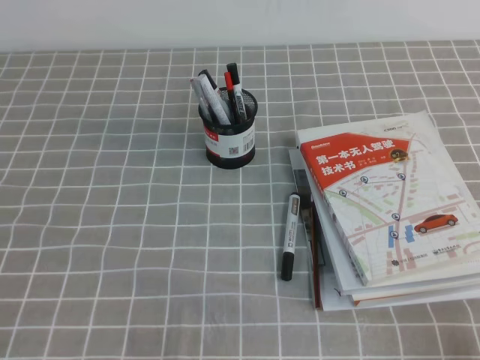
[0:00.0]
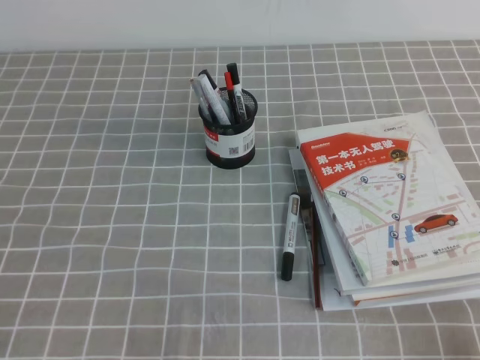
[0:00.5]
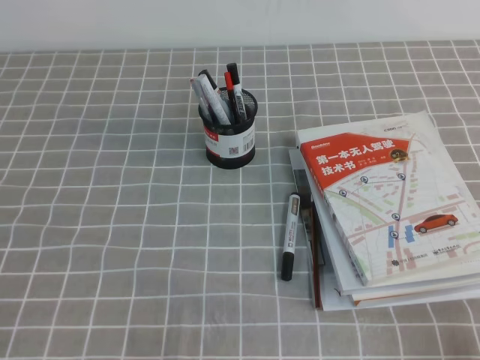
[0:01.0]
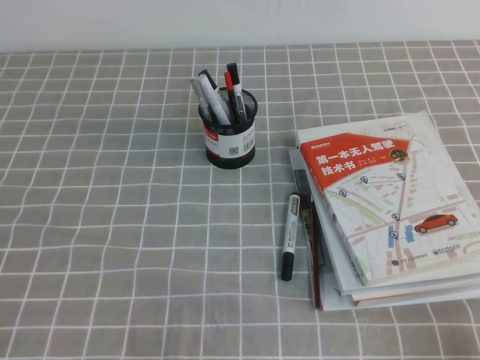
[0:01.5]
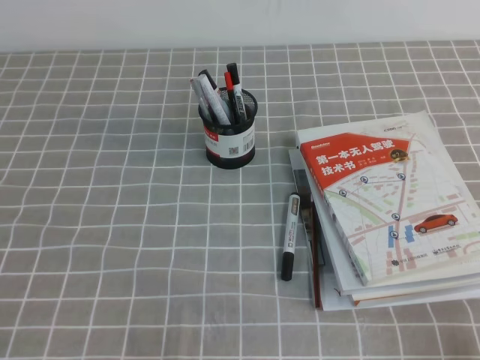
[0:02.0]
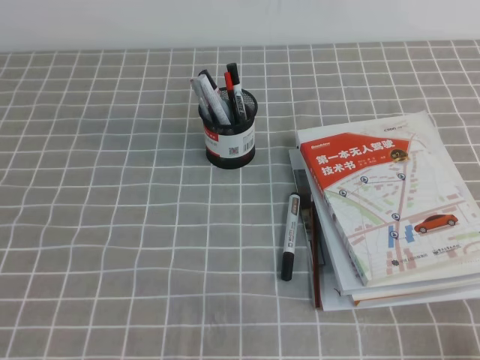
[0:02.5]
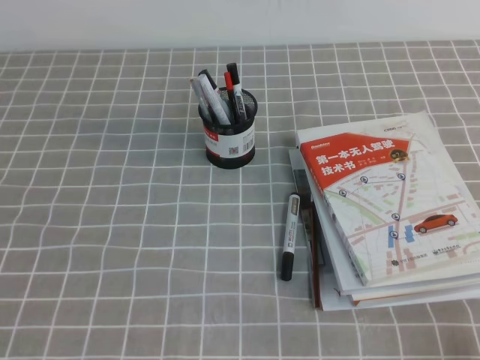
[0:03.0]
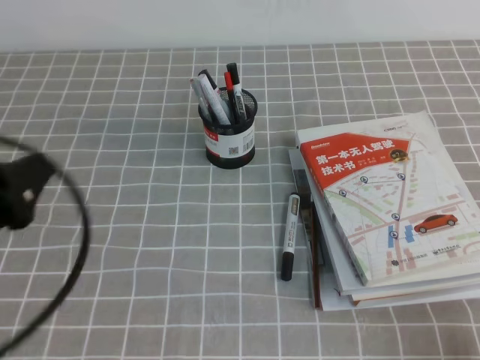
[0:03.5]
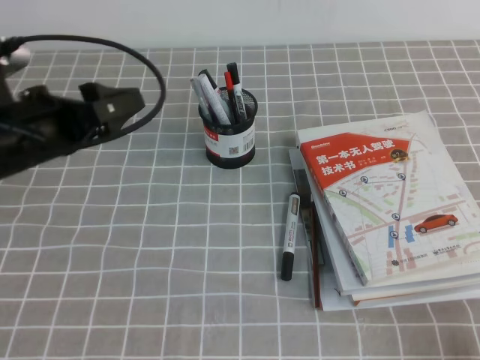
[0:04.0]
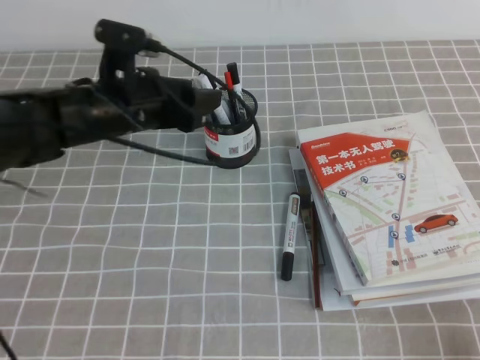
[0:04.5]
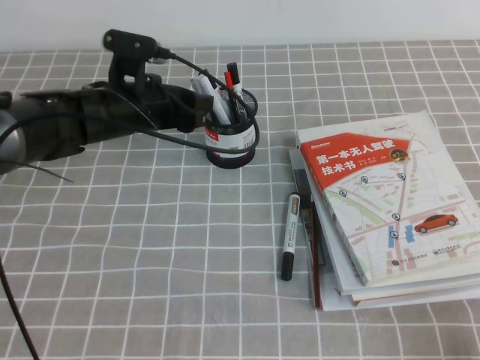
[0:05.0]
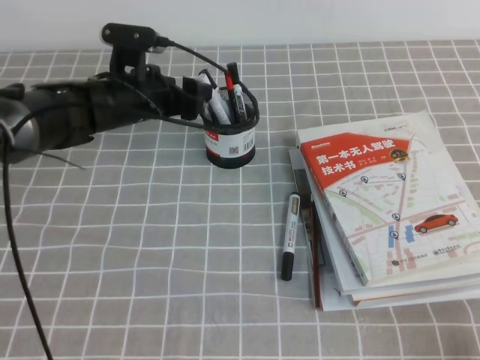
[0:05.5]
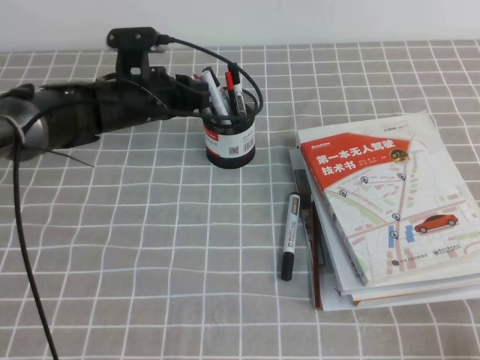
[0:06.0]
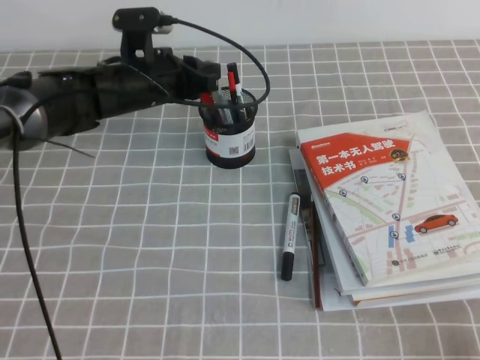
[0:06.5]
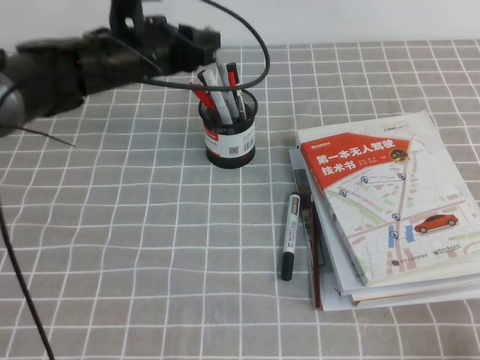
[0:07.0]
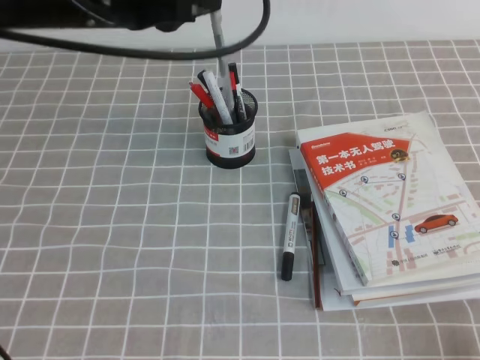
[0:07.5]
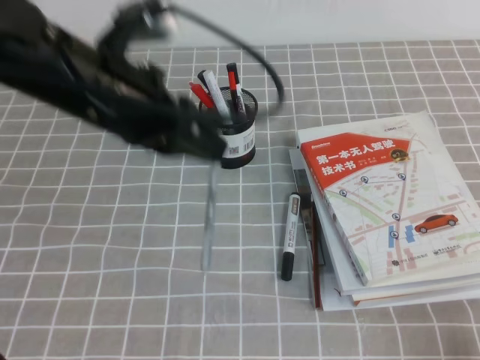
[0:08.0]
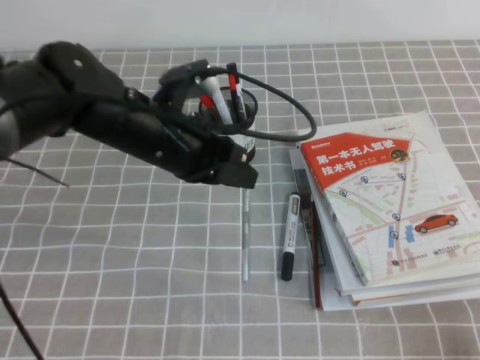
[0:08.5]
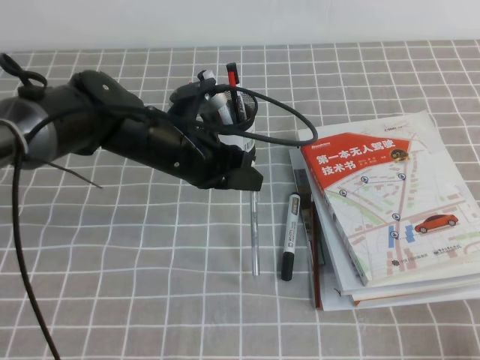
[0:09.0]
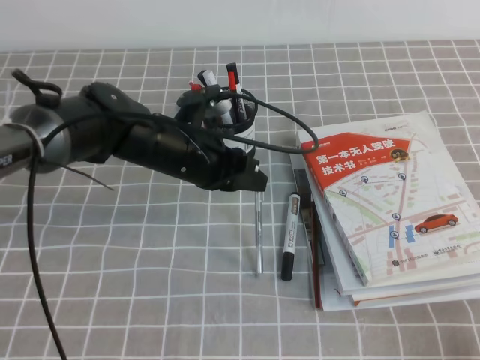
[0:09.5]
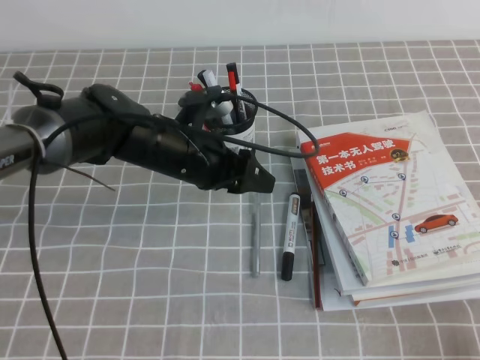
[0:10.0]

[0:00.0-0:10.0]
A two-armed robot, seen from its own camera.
0:00.0 to 0:02.0: Both grippers stay about where they are.
0:02.0 to 0:04.0: The left gripper travels forward and upward by roughly 25 cm, and opens.
0:04.0 to 0:06.0: The left gripper goes roughly 20 cm forward, to the right and downward, and closes its fingers.
0:06.0 to 0:08.0: The left gripper travels backward and upward by about 20 cm.
0:08.0 to 0:10.0: The left gripper moves downward, some 15 cm, and opens up.

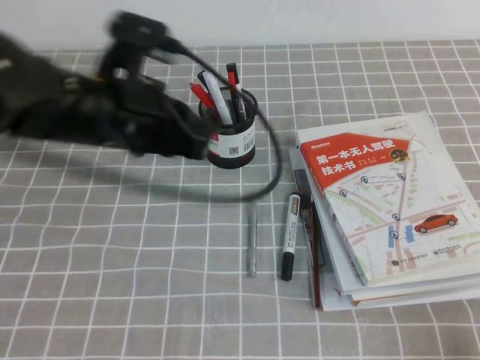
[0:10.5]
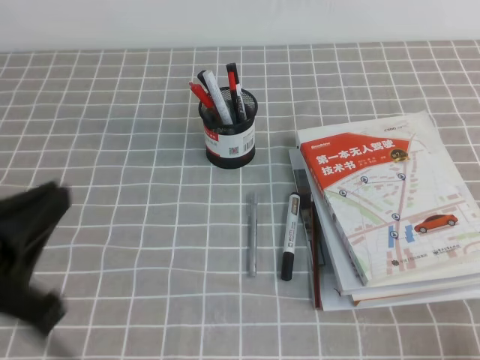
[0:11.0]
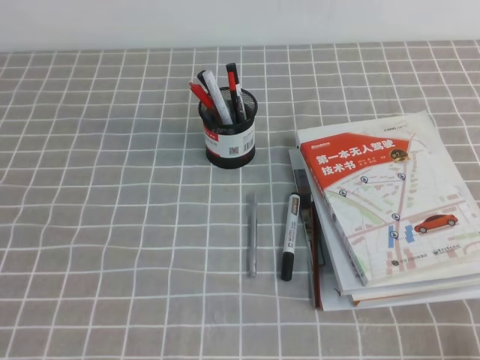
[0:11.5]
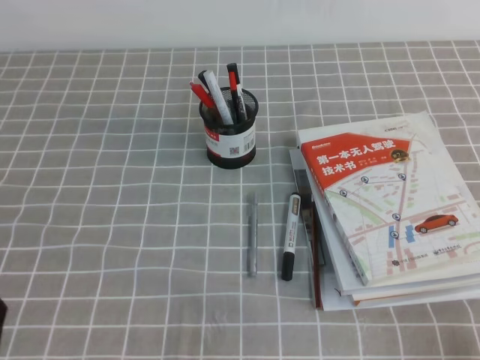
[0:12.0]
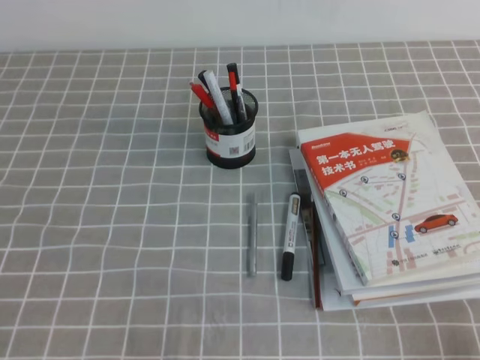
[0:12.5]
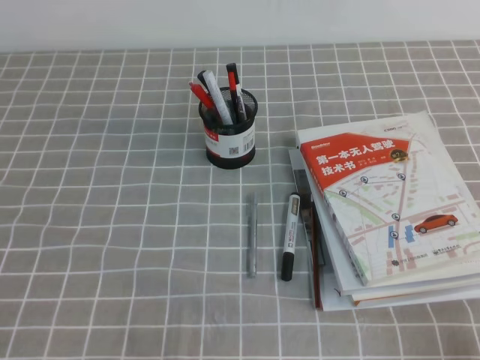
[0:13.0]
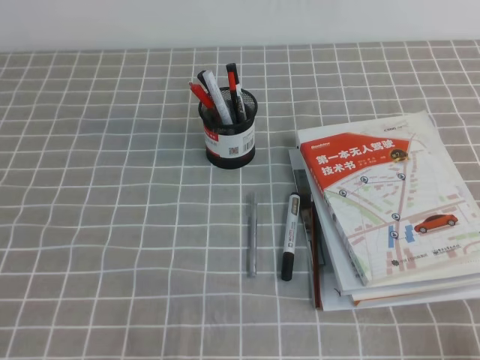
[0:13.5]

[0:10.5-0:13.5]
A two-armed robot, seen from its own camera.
Step, 0:10.5 to 0:13.5: Pick up the pen from the pen holder.
0:10.5 to 0:12.0: The left gripper travels backward, to the left and downward by about 30 cm.

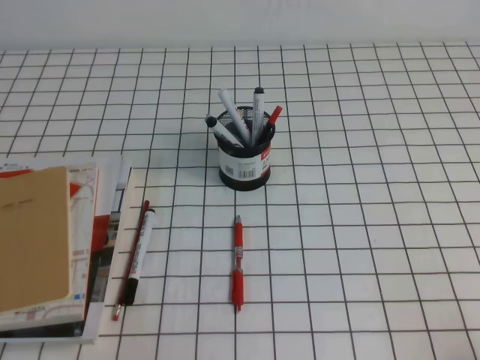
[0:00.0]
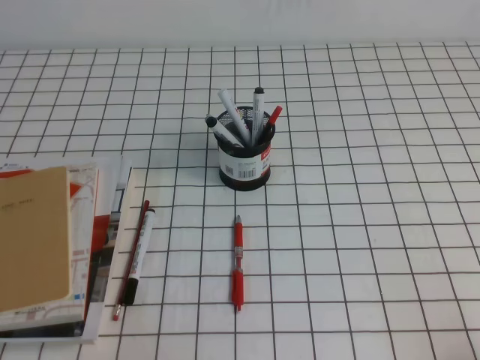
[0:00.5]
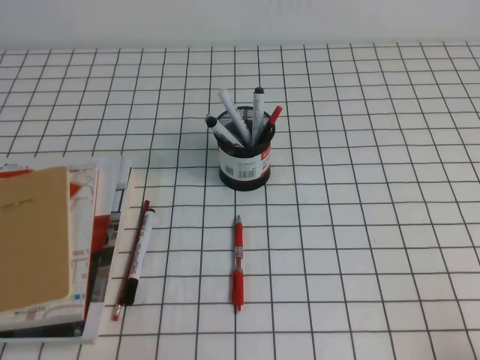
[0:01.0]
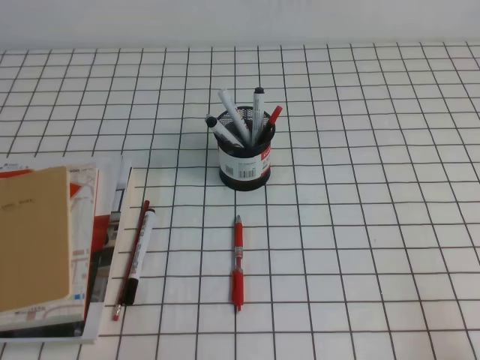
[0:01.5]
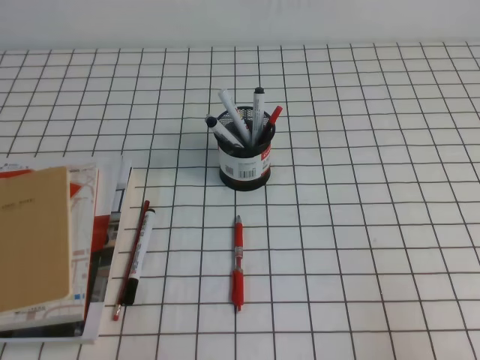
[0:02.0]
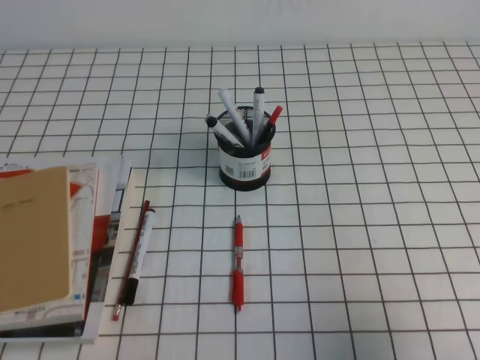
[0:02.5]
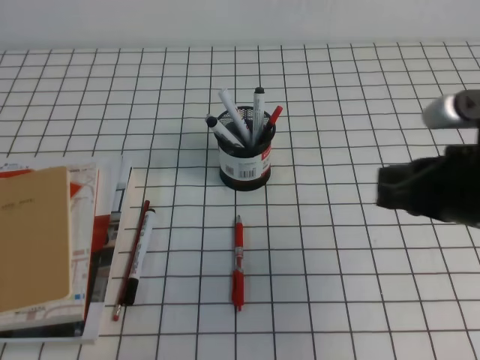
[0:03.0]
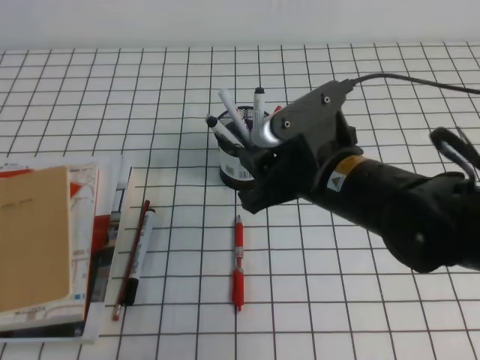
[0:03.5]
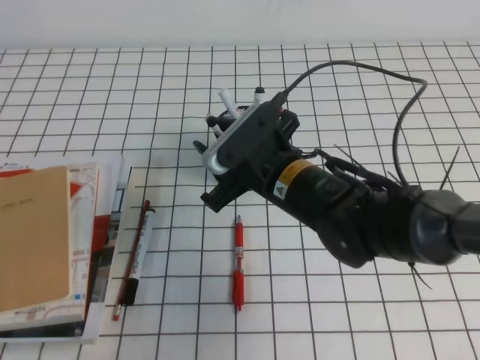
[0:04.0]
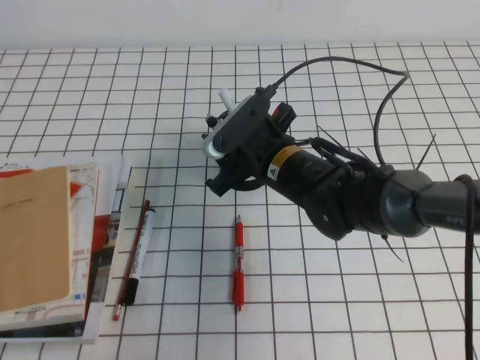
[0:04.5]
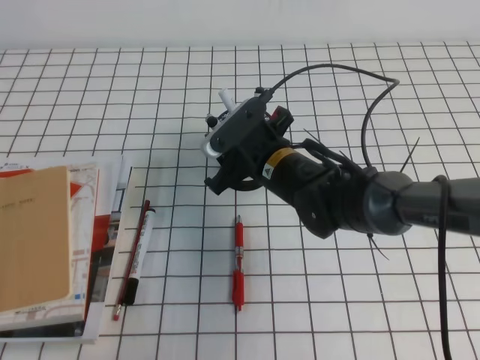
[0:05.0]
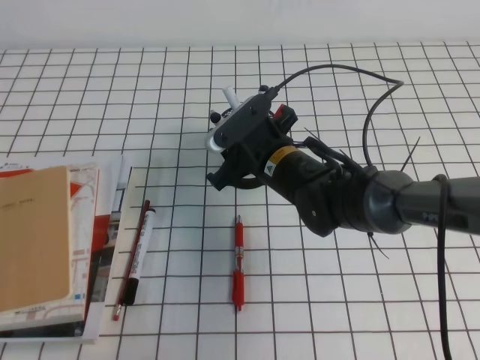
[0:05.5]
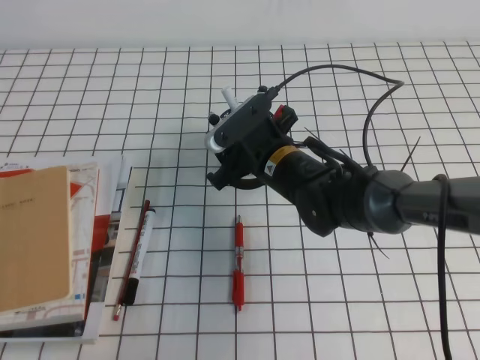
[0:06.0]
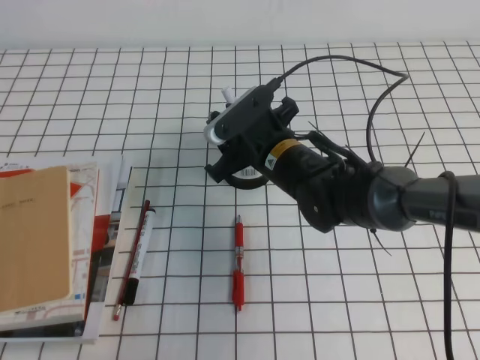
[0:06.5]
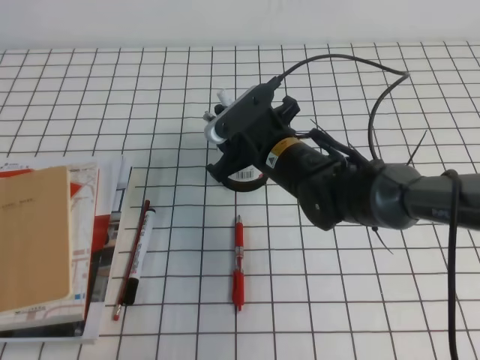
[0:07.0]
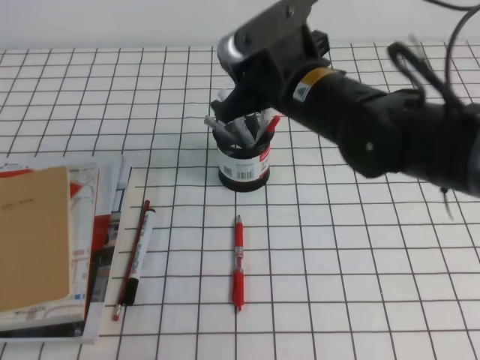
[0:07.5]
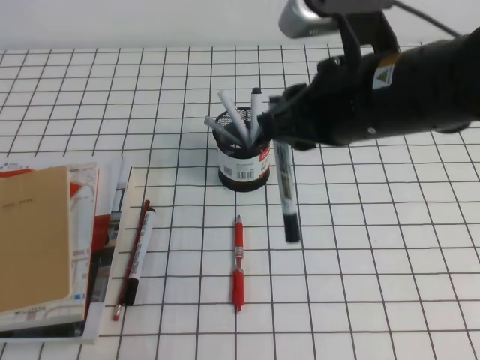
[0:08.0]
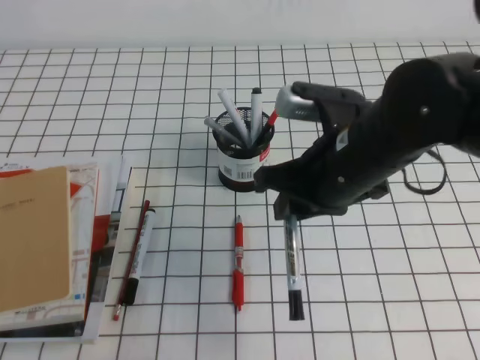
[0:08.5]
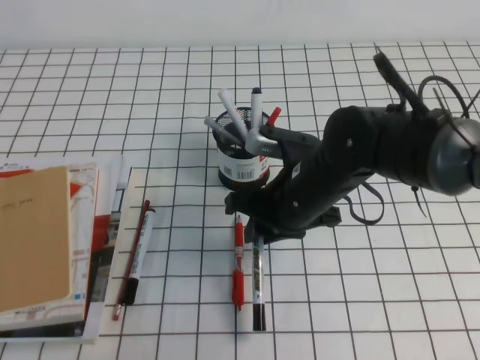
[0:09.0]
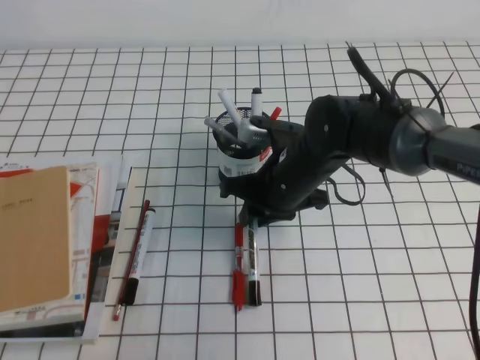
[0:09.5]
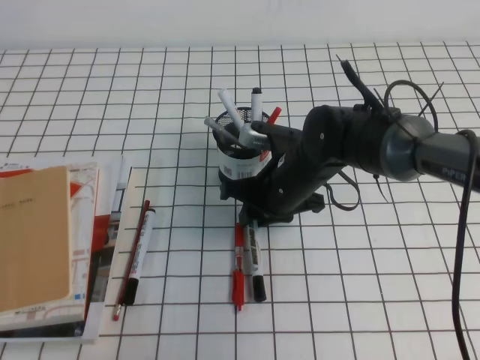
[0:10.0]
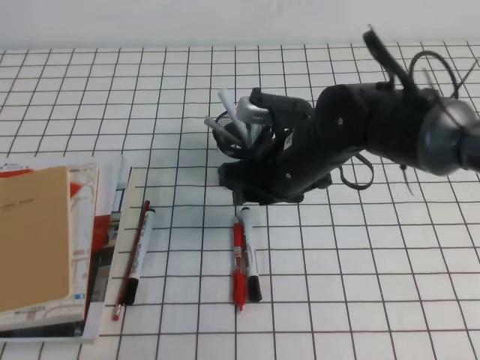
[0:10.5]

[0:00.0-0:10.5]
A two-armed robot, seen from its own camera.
0:02.0 to 0:04.0: The right gripper is displaced to the left and forward by approximately 35 cm, and opens its fingers.
0:04.0 to 0:06.5: The right gripper travels forward by about 5 cm.
0:06.5 to 0:08.5: The right gripper travels upward, backward and to the right by approximately 15 cm, and closes up.
0:08.5 to 0:10.5: The right gripper goes roughly 10 cm downward and forward, and opens.

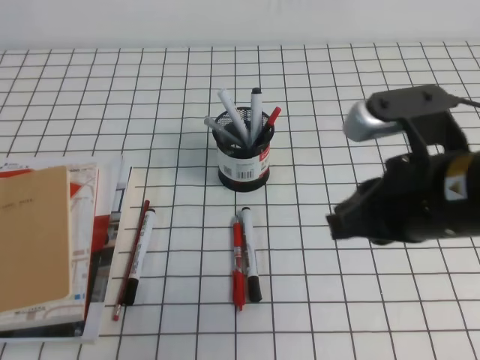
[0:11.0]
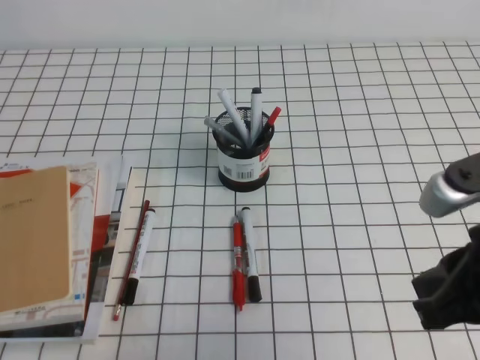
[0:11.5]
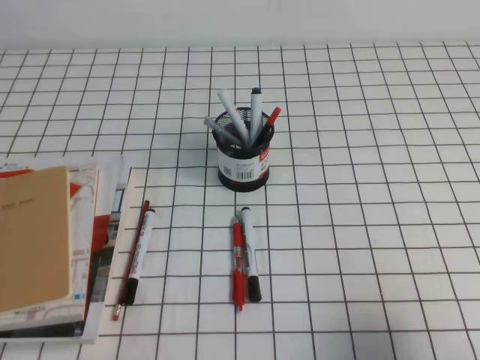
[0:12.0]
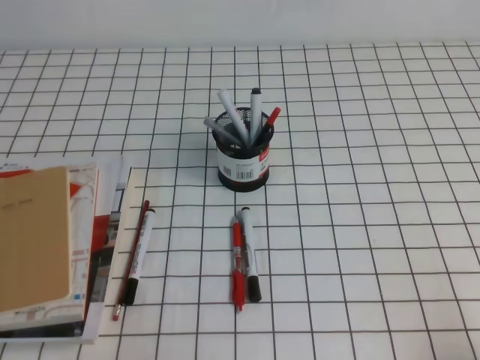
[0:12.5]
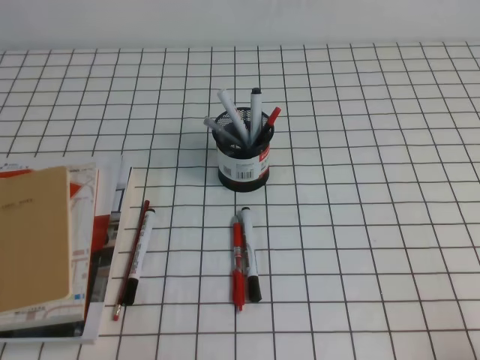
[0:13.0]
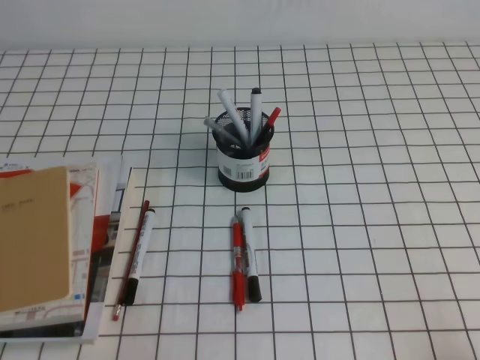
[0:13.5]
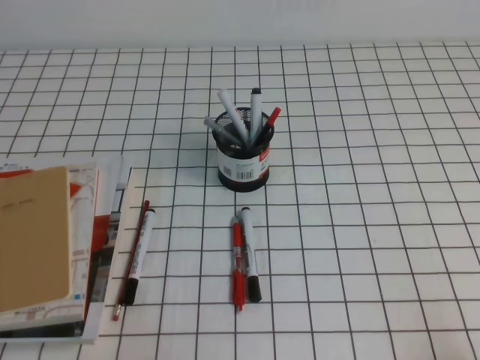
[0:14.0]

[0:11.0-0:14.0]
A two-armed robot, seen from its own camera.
Step, 0:11.0 to 0:14.0: Pick up the pen from the pen holder.
0:11.0 to 0:12.5: The right gripper shifts approximately 25 cm to the right, backward and downward.
